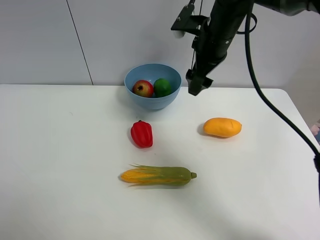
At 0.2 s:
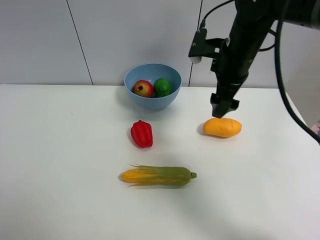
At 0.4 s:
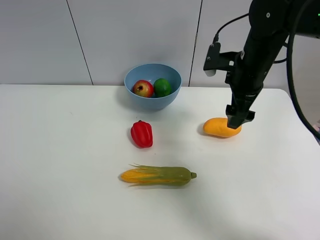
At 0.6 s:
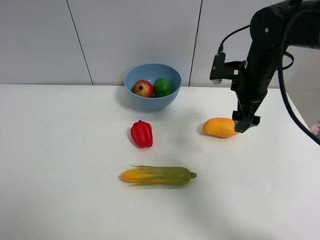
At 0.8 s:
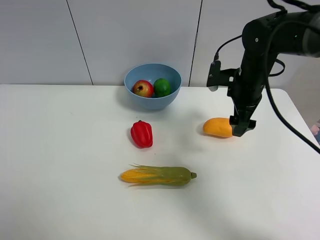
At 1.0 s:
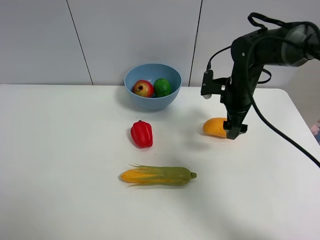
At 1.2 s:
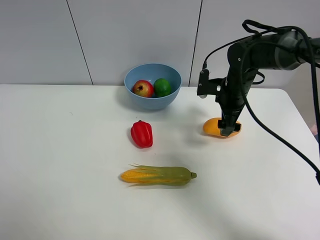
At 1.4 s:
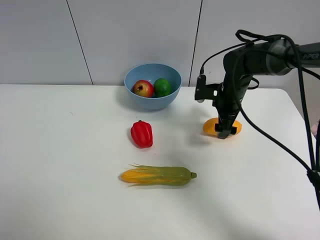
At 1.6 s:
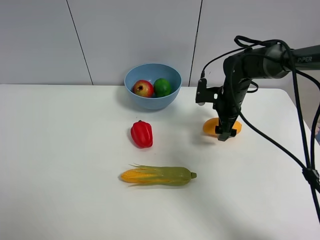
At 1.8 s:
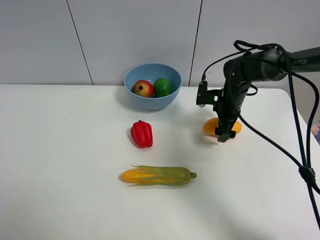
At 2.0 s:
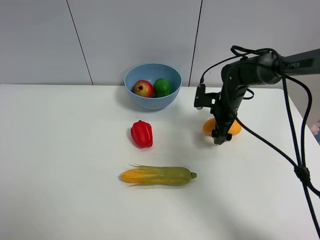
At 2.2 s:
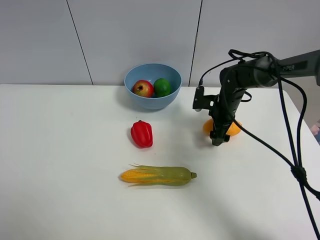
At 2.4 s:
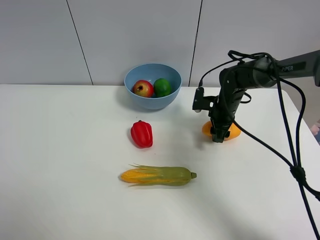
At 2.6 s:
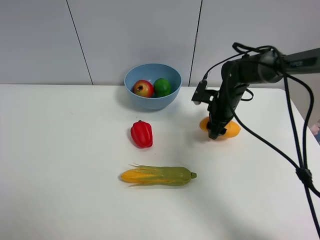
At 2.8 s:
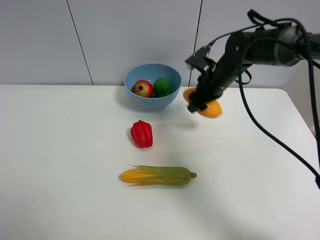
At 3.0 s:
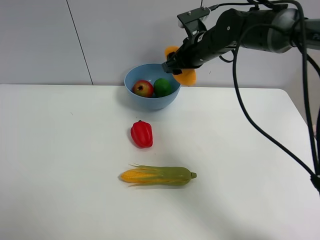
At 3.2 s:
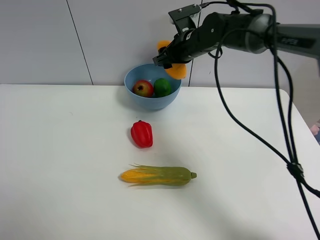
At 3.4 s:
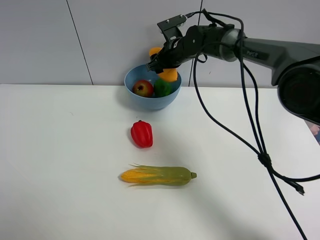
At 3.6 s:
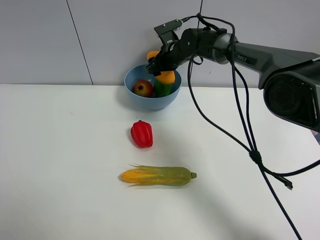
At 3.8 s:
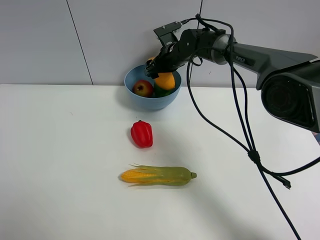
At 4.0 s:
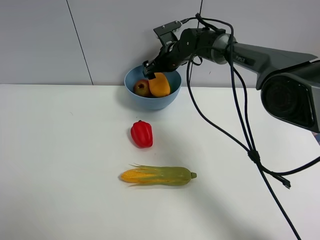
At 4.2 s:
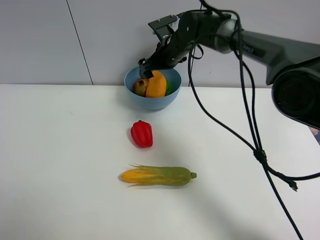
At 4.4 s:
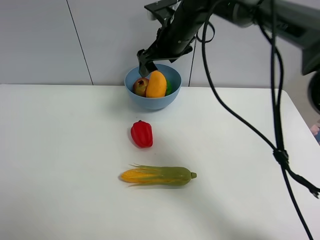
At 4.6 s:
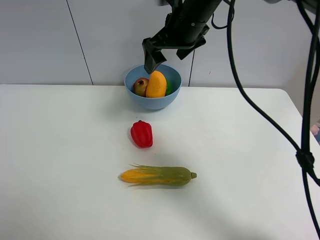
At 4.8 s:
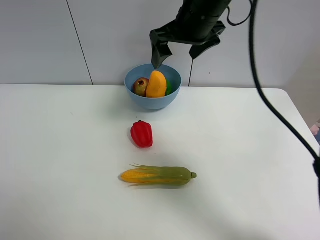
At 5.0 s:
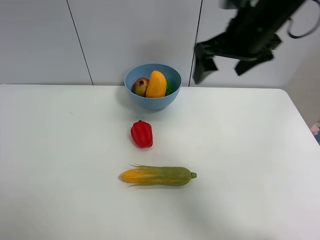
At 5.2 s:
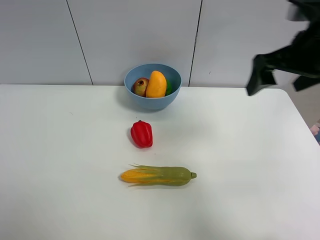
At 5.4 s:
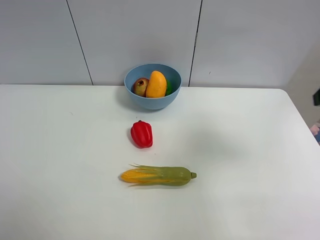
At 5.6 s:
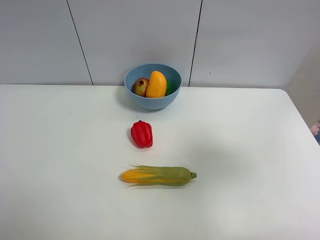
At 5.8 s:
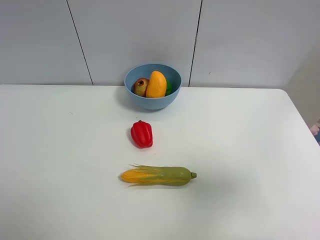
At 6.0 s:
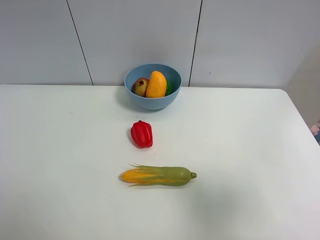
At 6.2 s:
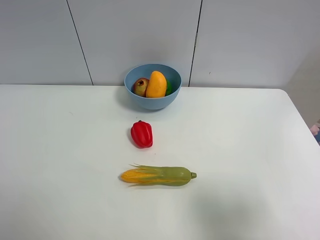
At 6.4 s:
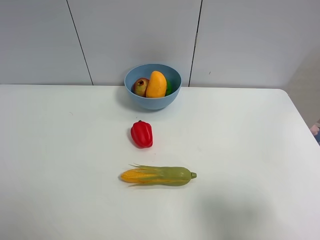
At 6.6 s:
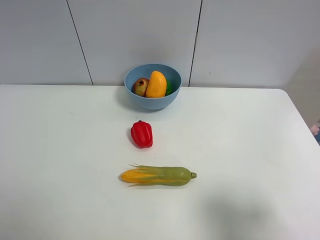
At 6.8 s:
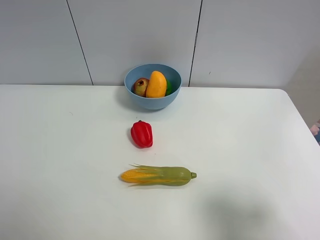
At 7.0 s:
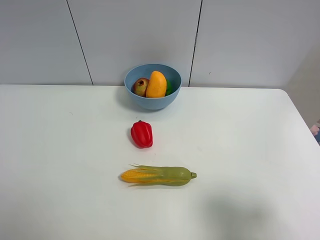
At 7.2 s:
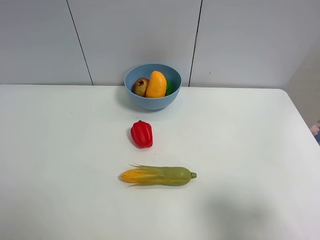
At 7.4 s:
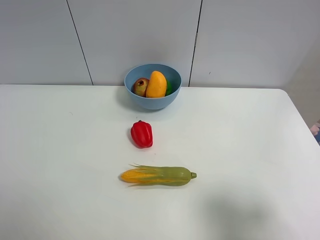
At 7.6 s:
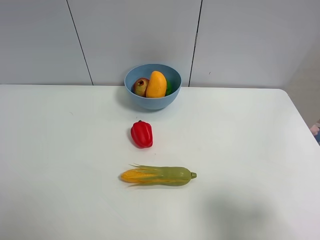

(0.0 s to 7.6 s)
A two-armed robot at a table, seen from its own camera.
Task of the whole recording: Put the three fruits on the table into a bowl.
Step, 0.0 s - 2.4 s: Grasp the mango with right gripper.
Step, 2.6 s - 4.2 s: Place the mango in the blue bowl with right gripper.
0.0 s - 1.6 s: The right gripper heads downward and to the right, covering some 20 cm.
1.6 s - 3.0 s: The right gripper goes about 15 cm upward and to the left, and closes.
3.0 s - 4.6 s: The right gripper is displaced upward and backward by approximately 10 cm, and opens.
4.6 s - 6.0 s: The right gripper moves backward and to the right, roughly 40 cm.
6.0 s - 7.6 s: The right gripper is displaced downward by about 10 cm.
